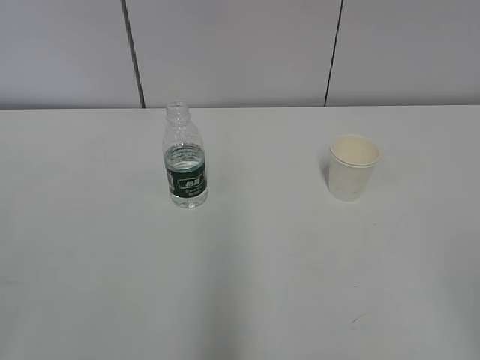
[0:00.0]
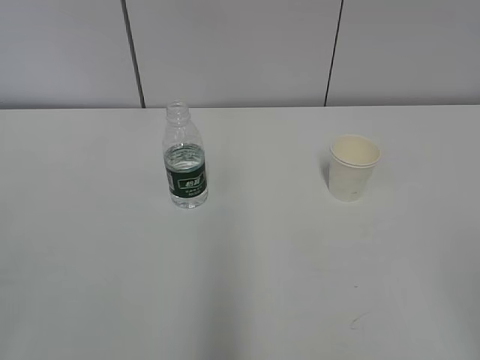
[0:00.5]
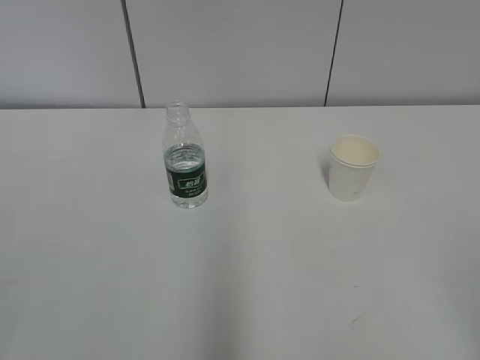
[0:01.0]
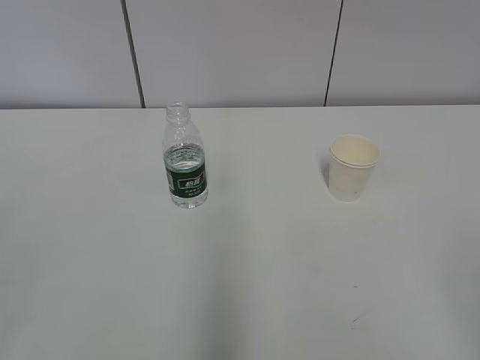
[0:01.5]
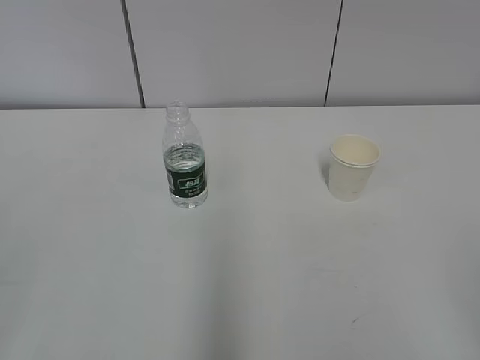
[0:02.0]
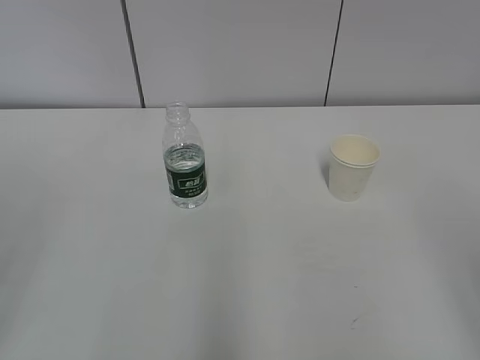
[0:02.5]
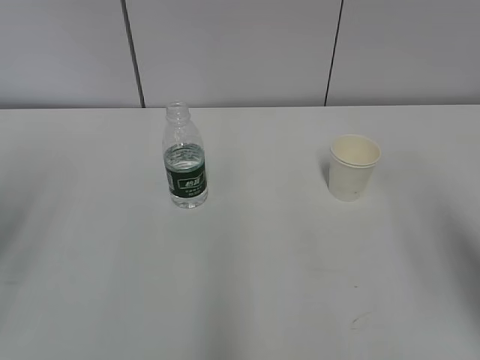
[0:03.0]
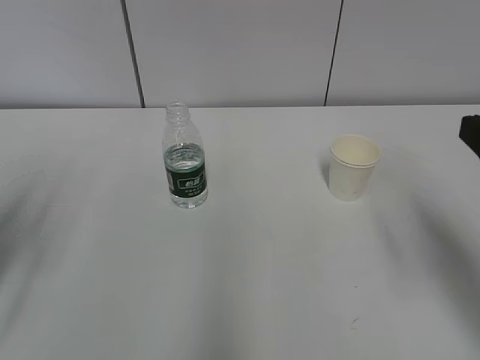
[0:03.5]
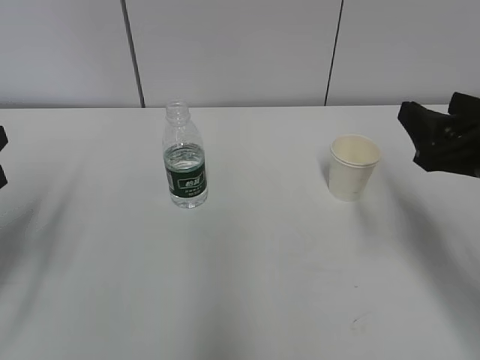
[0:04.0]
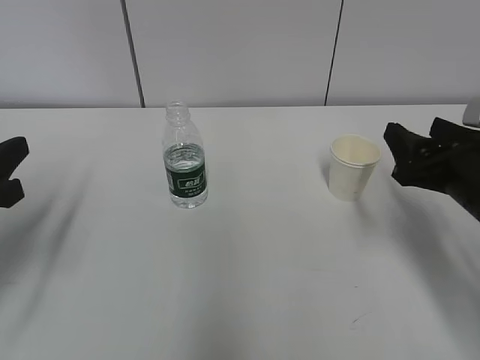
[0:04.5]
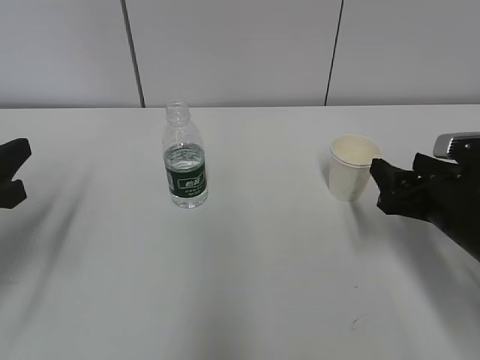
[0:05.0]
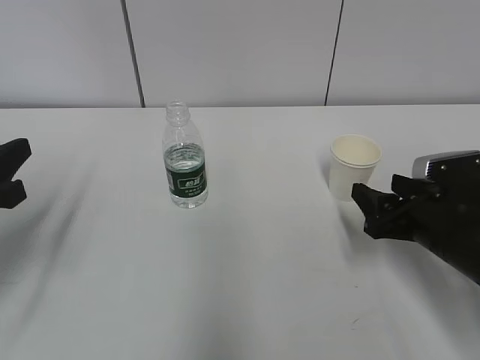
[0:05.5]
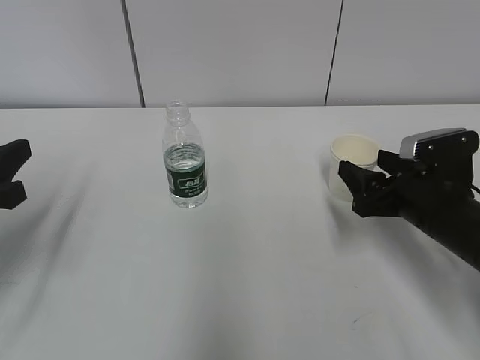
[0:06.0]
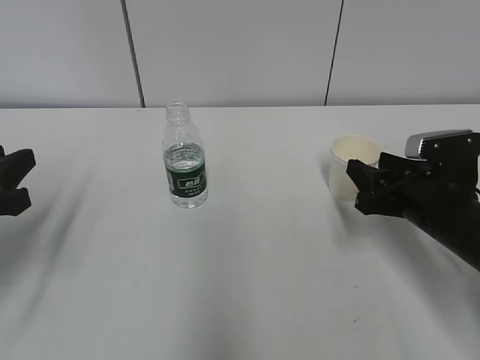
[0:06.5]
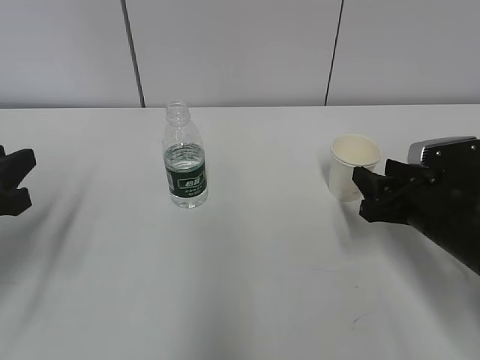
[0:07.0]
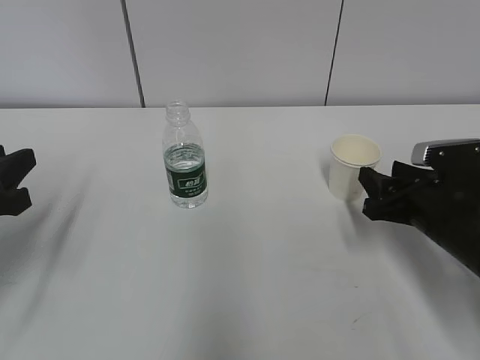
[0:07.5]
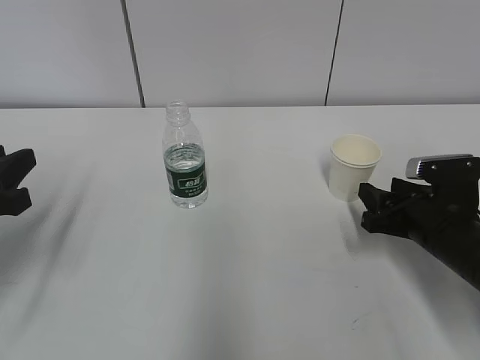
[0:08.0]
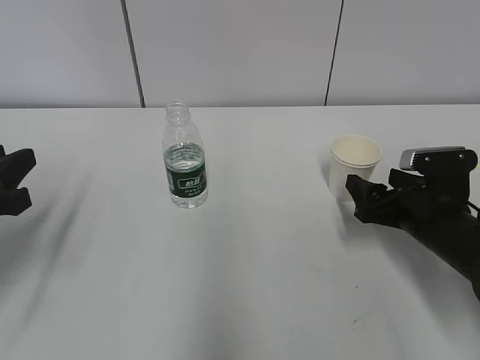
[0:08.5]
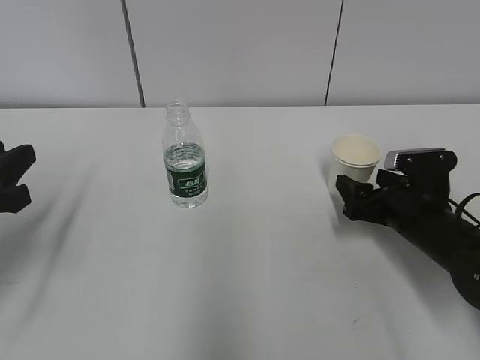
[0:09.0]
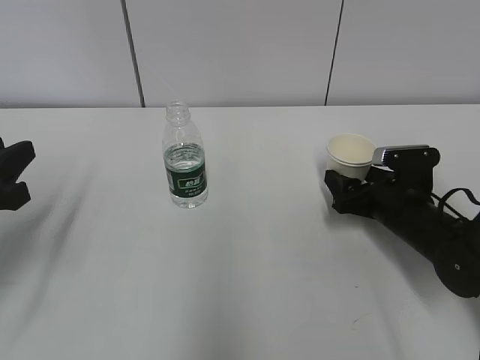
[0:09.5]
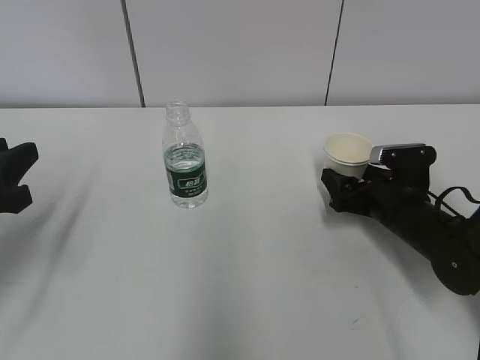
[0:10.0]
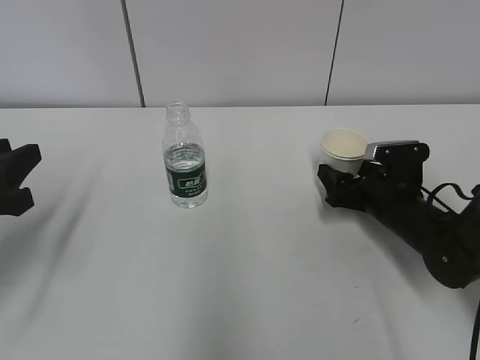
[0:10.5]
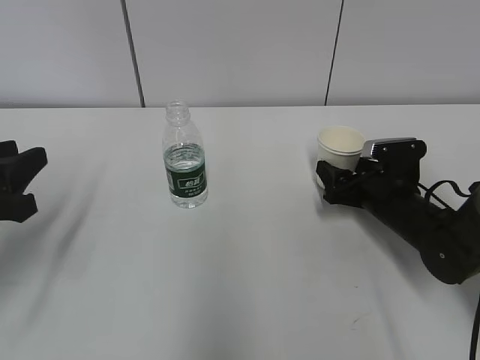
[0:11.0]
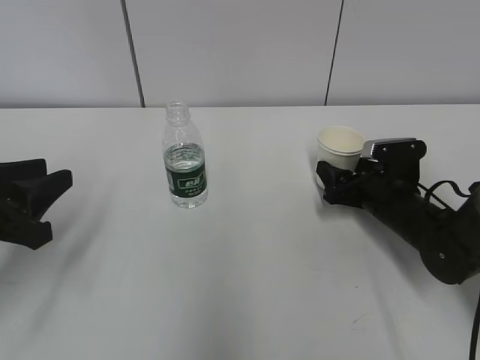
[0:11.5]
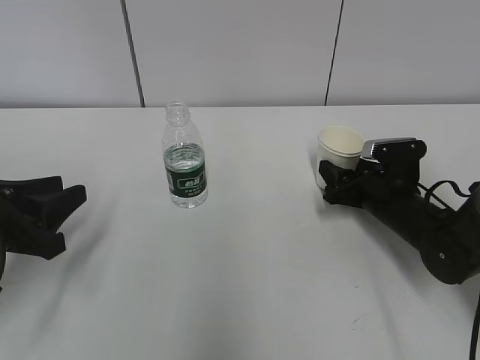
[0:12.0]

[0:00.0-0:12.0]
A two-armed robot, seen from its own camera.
Step, 0.0 to 9.5 s: Grab the paper cup with the right hand.
2.0 to 4.0 s: The grippers both shift forward by approximately 25 cm. The left gripper closes.
4.0 to 6.0 s: The right gripper heads downward and forward, covering about 10 cm.
6.0 to 8.0 s: The right gripper closes up.
8.0 to 10.0 s: The right gripper is displaced forward by about 5 cm, and opens its fingers.
10.0 to 12.0 s: The right gripper closes its fingers.

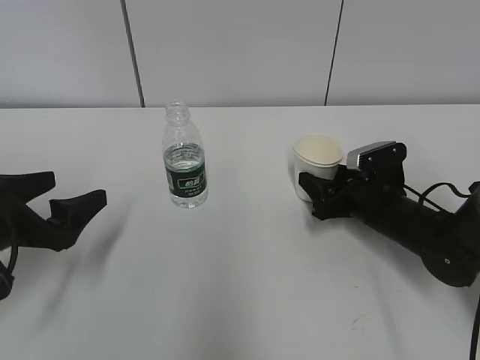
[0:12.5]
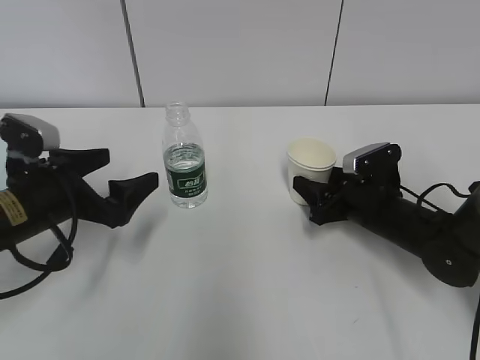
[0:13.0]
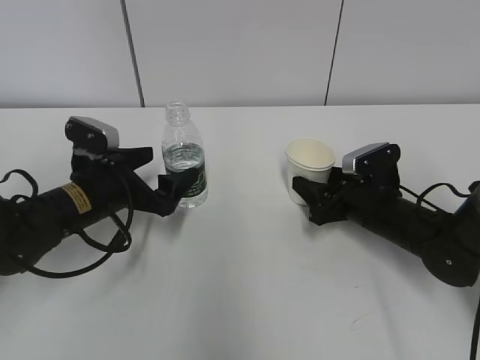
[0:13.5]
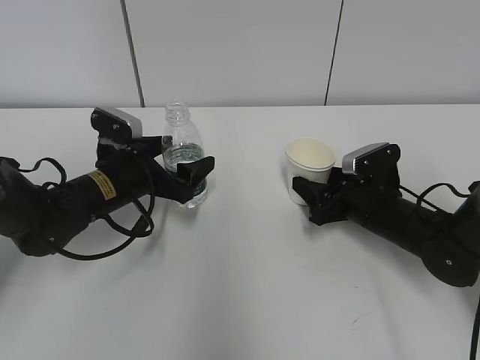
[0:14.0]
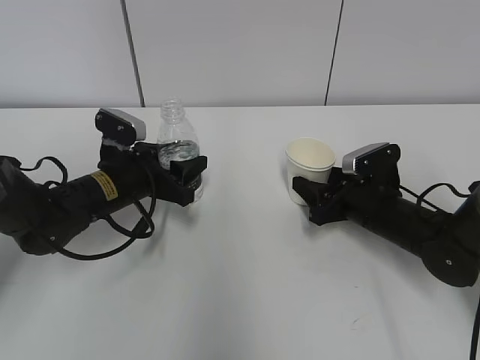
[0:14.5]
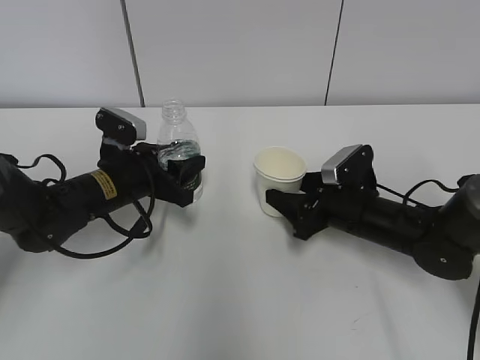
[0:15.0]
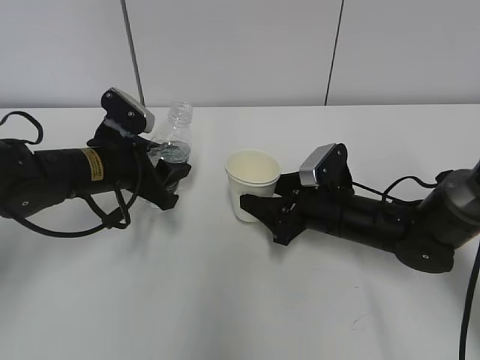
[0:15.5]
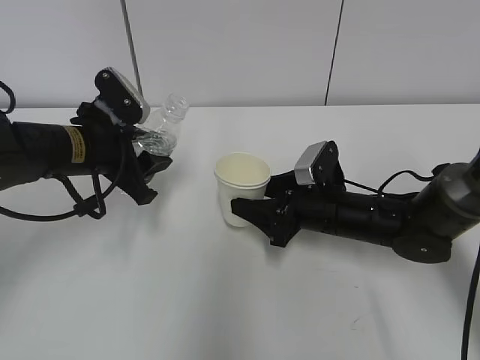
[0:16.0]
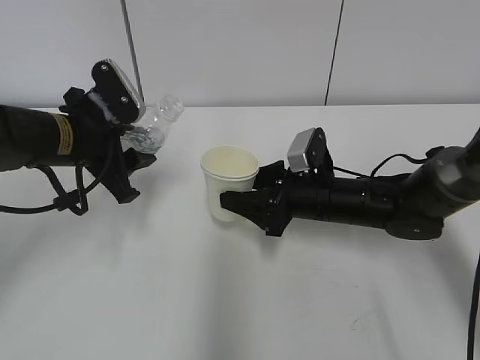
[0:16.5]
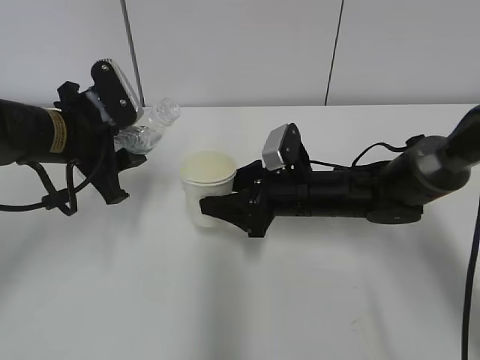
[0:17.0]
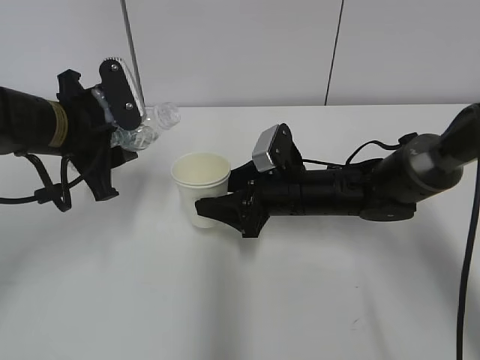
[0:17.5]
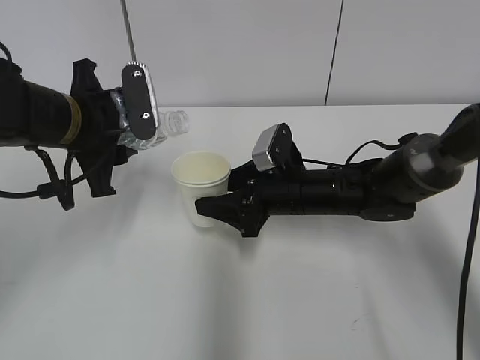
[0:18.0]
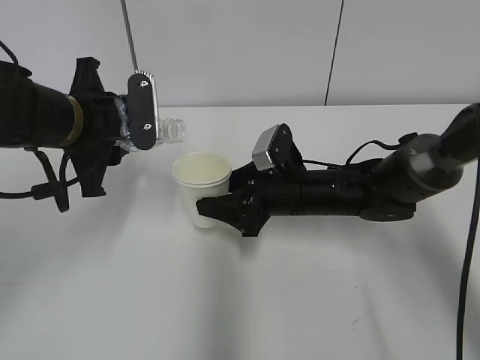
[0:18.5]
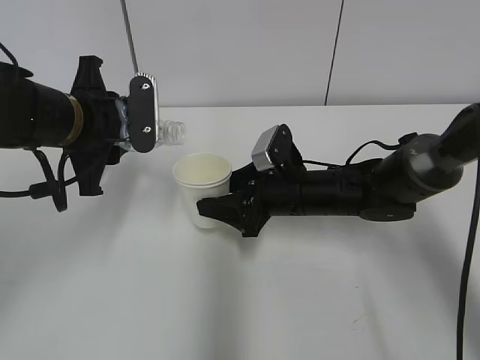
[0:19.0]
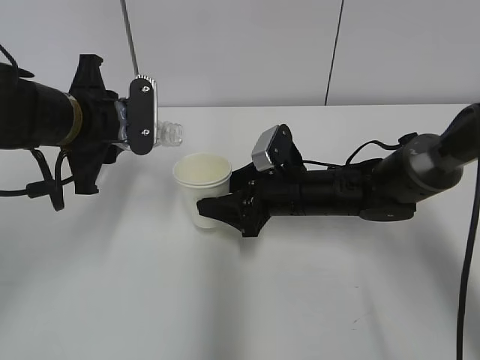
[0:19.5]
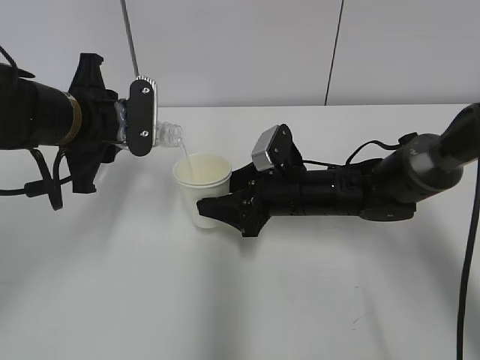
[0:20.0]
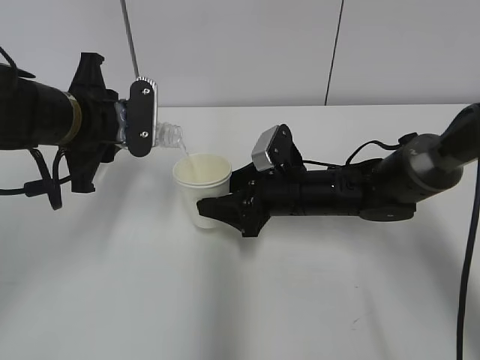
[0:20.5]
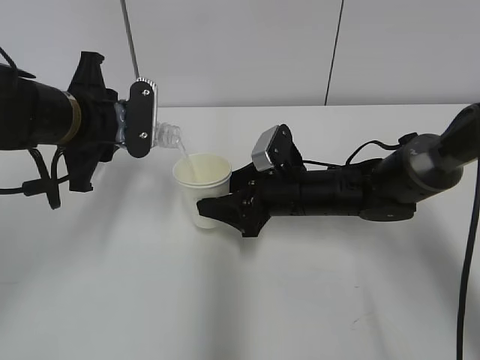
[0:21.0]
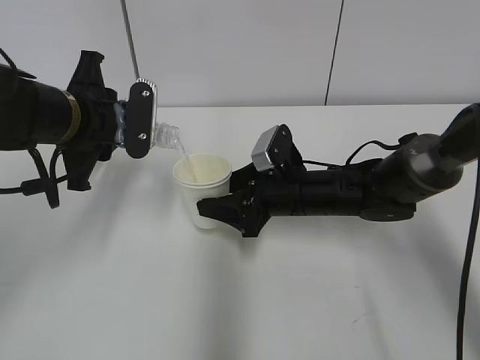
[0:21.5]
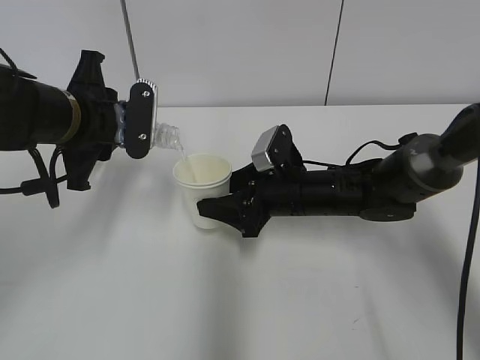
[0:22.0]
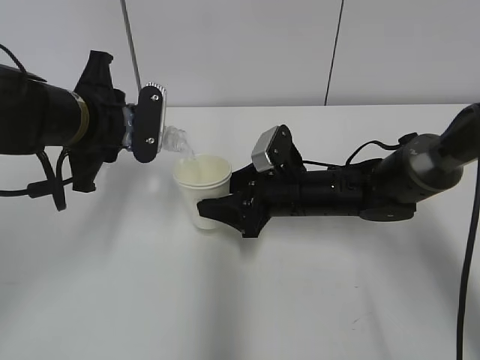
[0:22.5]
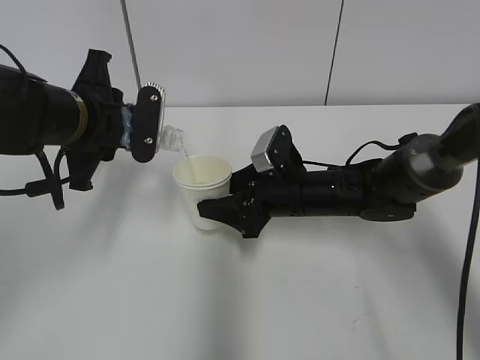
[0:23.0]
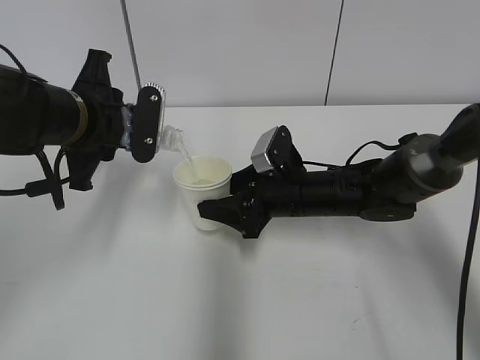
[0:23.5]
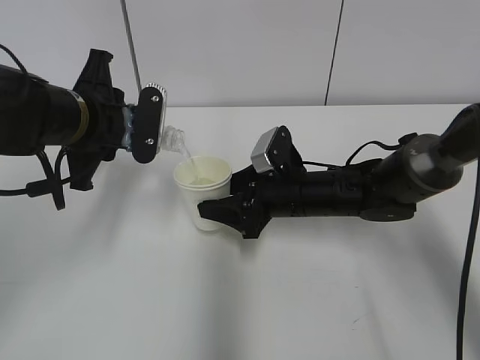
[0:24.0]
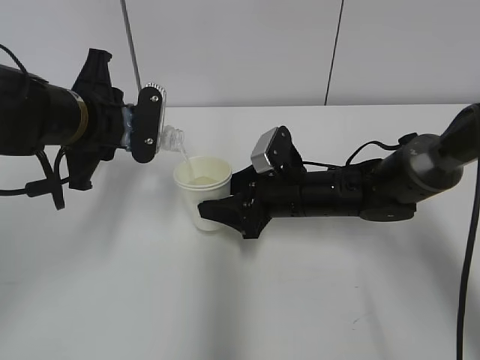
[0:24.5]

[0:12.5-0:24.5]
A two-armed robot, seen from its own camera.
Step, 12.5 to 16.0 s: Lift the paper cup with the right hand.
Step, 16.5 to 21.0 s: Fill water with the right hand.
Step, 16.5 to 21.0 s: Pour water with the left hand.
Step, 21.5 to 22.5 s: Collect water with the left hand.
12.5 to 14.5 s: The left gripper is displaced forward and to the right by some 15 cm, and closes up.
14.5 to 16.5 s: The right gripper moves to the left, approximately 5 cm. The left gripper travels upward by approximately 10 cm.
18.5 to 20.5 s: The grippers stay close to where they were, moving slightly.
20.5 to 22.5 s: Both grippers stay about where they are.
22.5 to 24.5 s: Both grippers stay put.

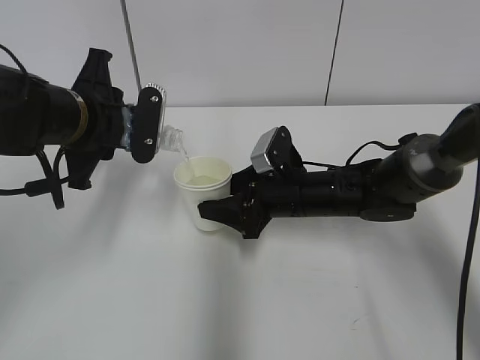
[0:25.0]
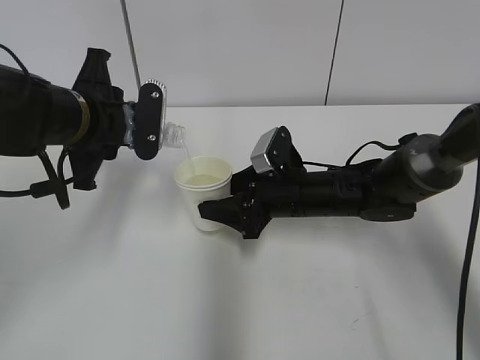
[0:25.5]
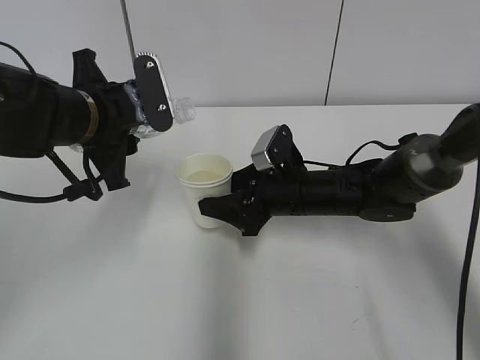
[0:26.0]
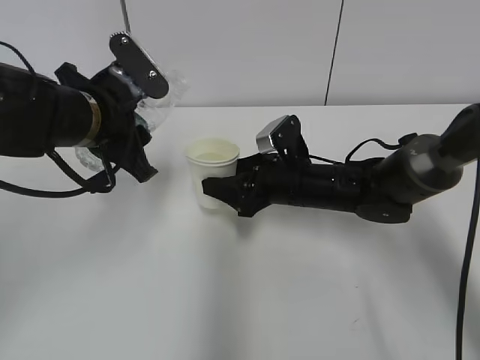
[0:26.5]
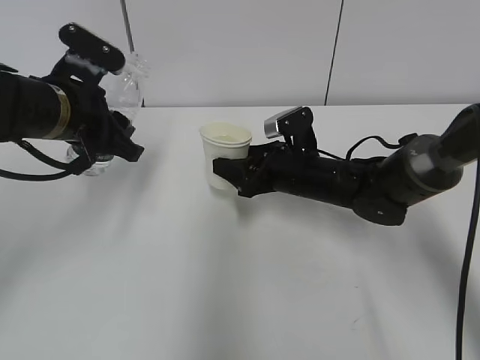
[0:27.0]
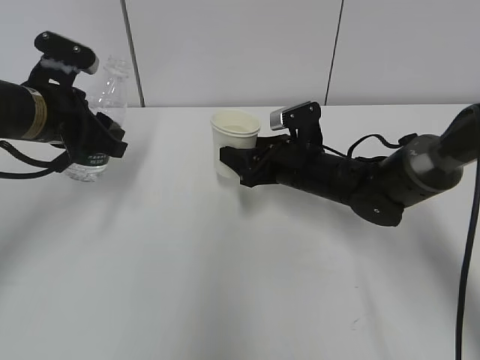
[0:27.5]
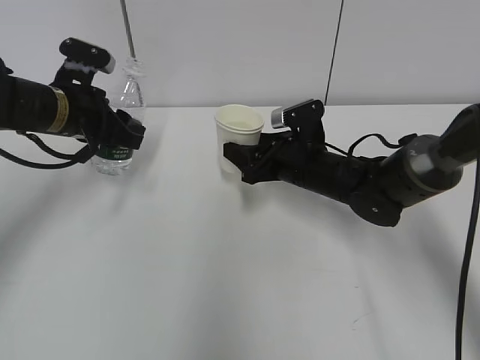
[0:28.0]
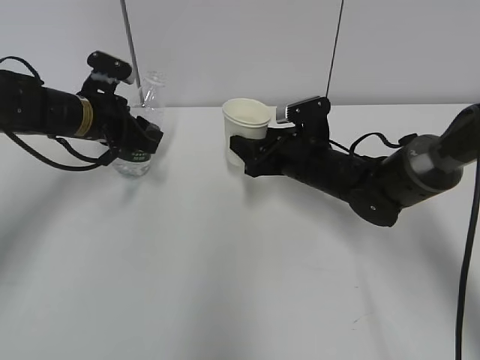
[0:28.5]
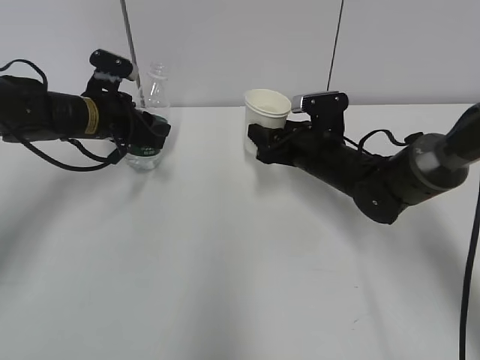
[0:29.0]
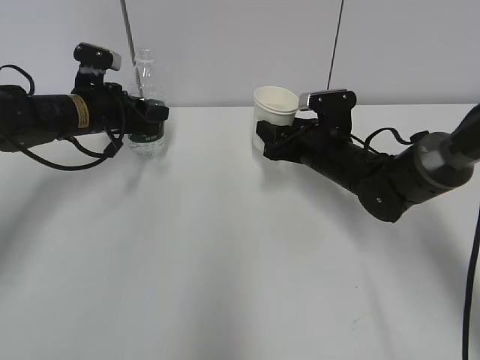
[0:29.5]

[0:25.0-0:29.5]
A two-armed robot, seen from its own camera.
Step, 25.0 to 28.0 s: Place the paper cup with the right hand.
27.0 to 29.5 s: The left gripper goes about 15 cm forward and downward.
